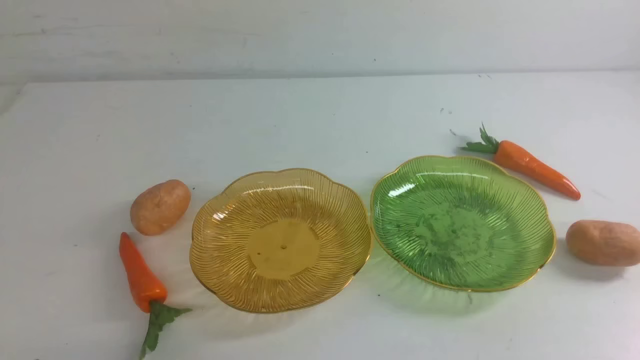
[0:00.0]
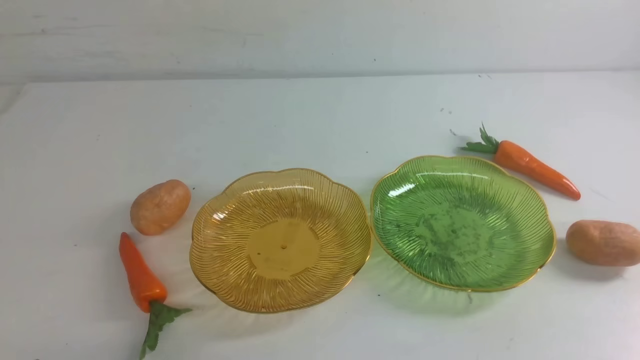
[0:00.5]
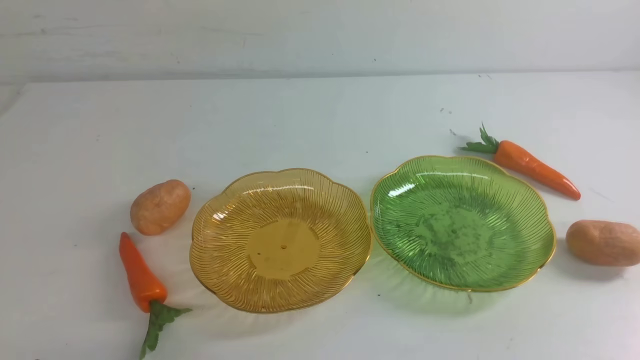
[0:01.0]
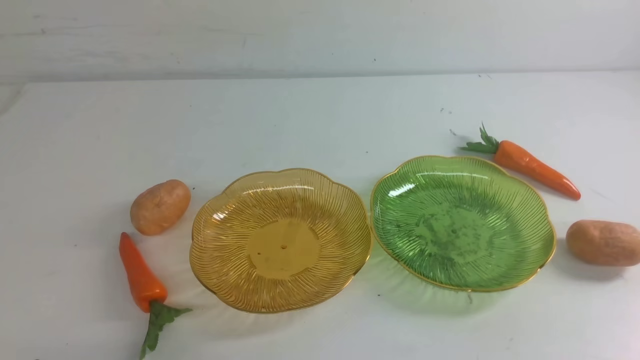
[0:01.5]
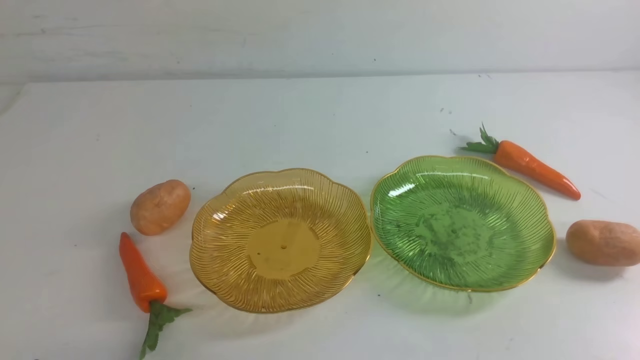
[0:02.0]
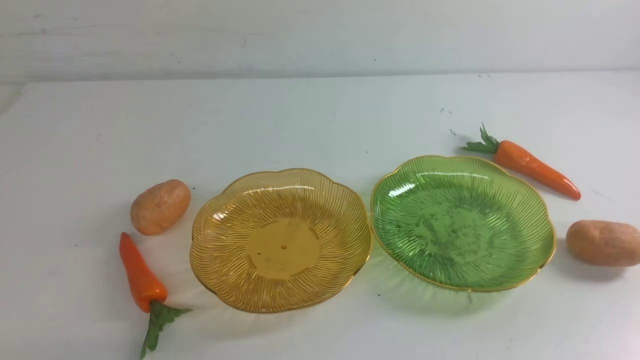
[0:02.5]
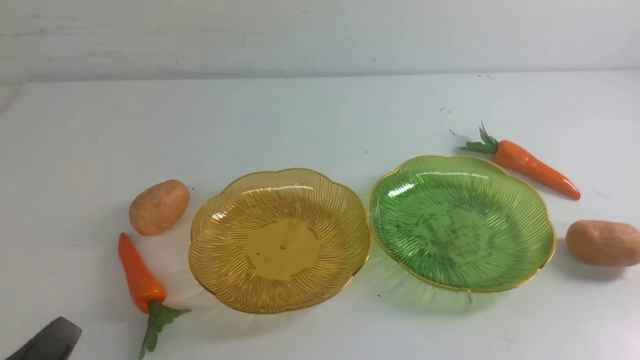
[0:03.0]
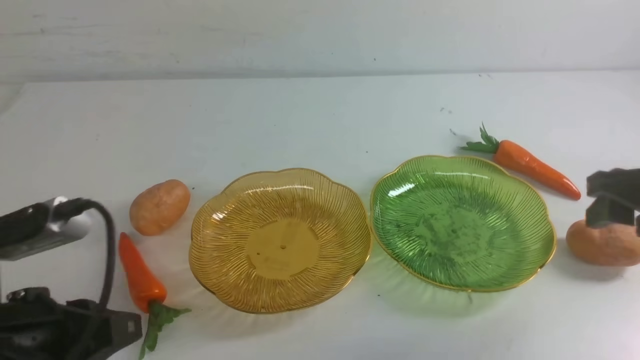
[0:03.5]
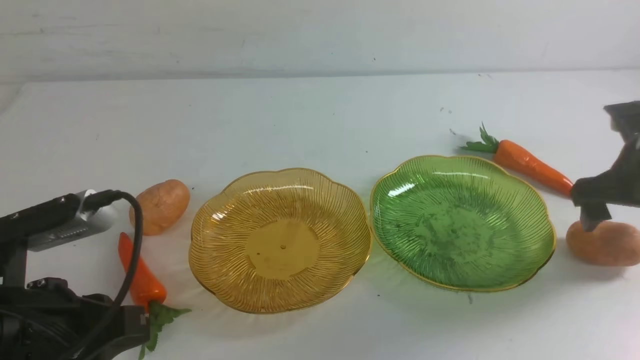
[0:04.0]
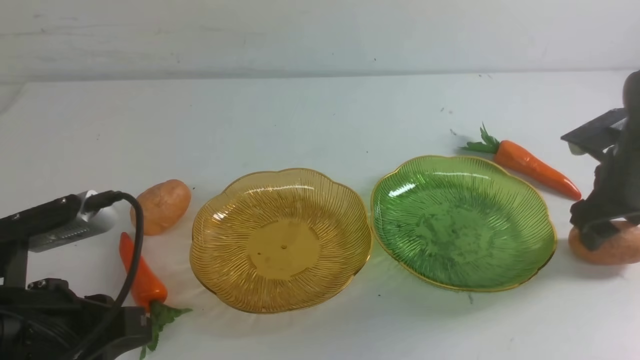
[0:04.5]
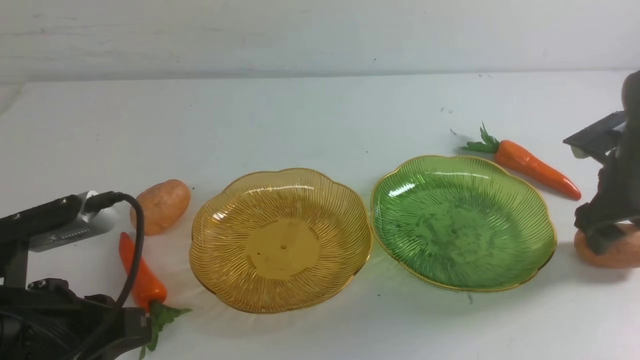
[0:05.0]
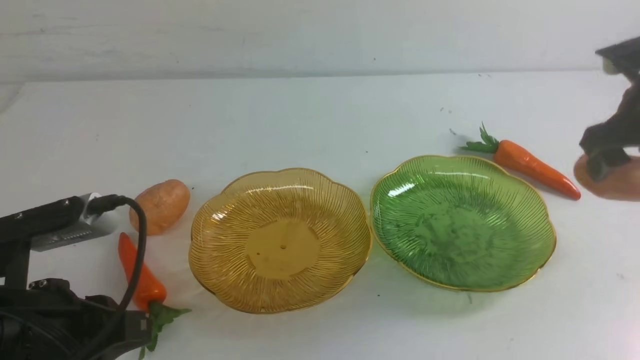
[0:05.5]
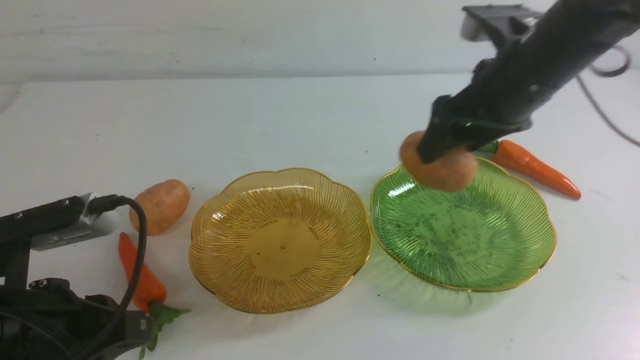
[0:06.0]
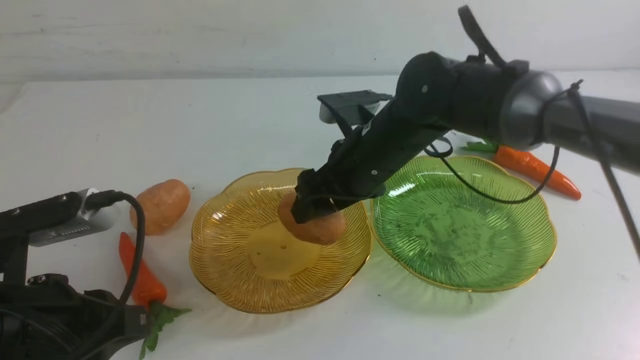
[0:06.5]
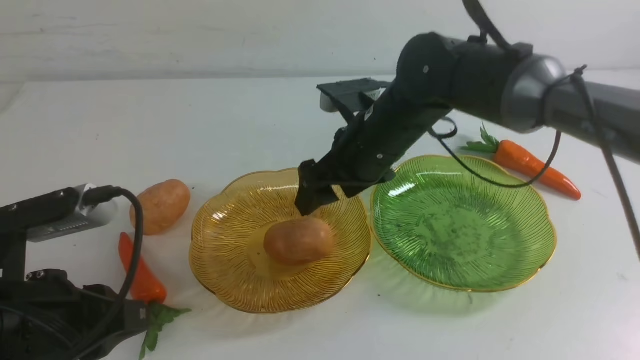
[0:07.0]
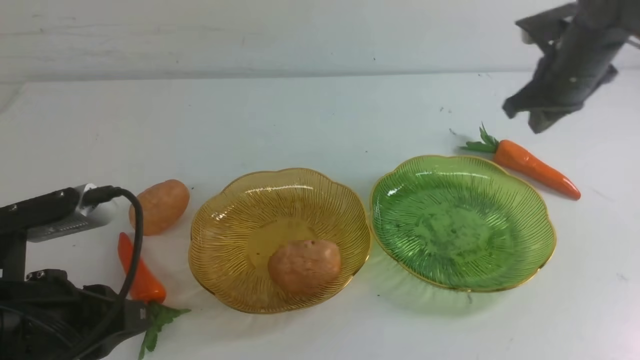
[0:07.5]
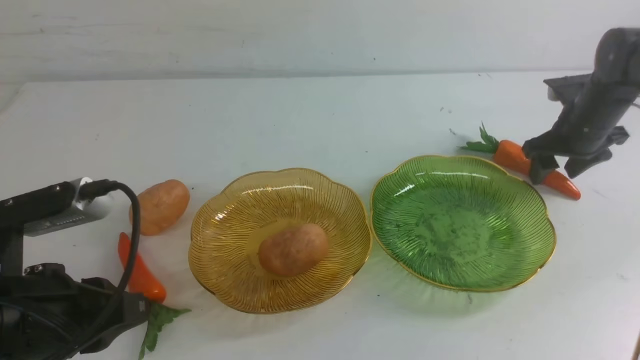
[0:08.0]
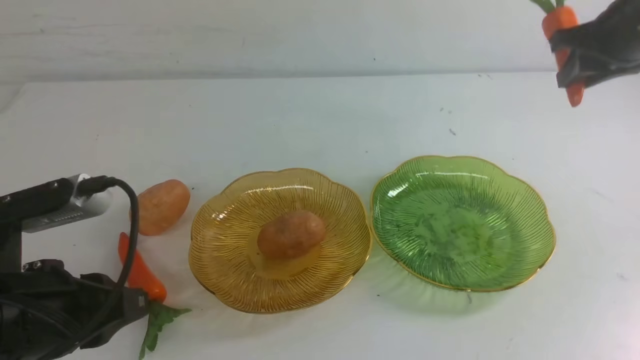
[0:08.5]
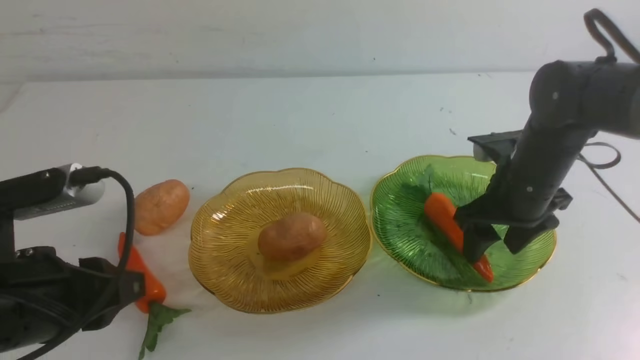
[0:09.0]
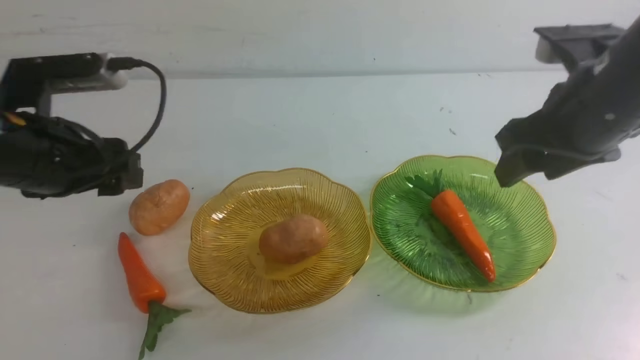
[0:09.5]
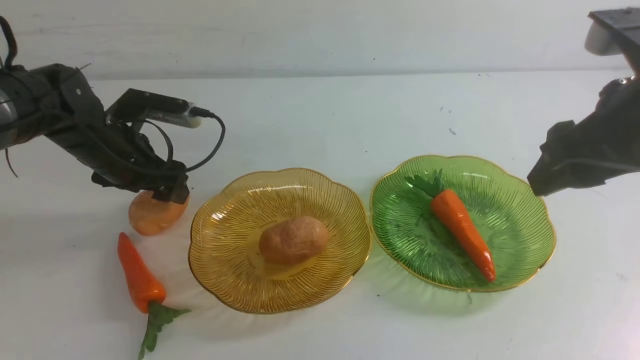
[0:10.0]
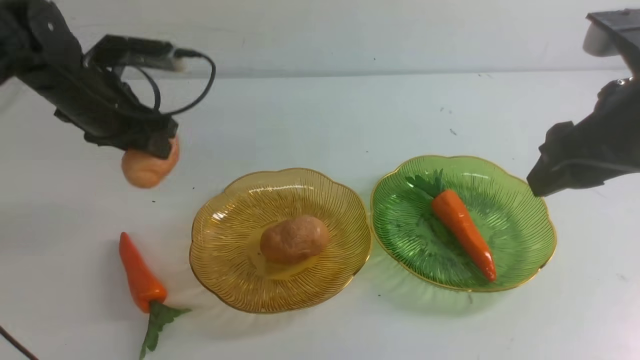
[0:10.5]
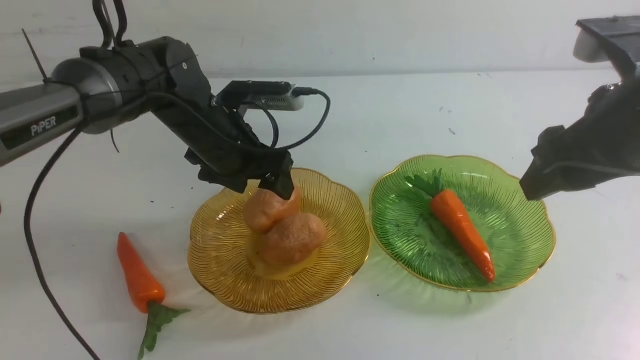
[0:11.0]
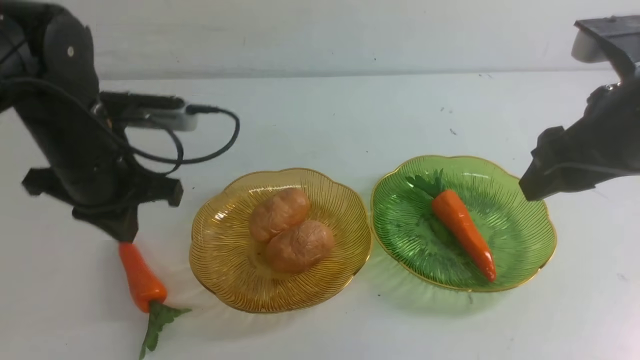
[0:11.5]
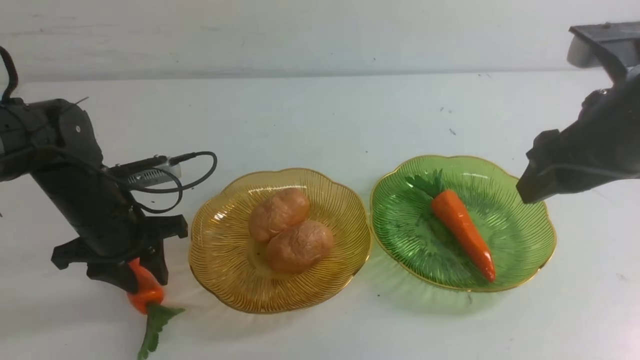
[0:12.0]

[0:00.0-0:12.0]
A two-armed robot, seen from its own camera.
Step, 0:00.0 to 0:07.0: Grab a potato with your right arm and put it on the left plate.
Step, 0:07.5 to 0:09.0: use the right arm to grab a carrot and put it into the right plate.
Step, 0:09.5 to 0:11.0: Grab a potato with your left arm and put it on the left plate.
0:02.0 to 0:04.0: The right gripper heads forward, covering roughly 30 cm, and opens its fingers, while the left gripper heads upward and forward, covering some 15 cm.
0:04.0 to 0:06.0: The right gripper goes approximately 30 cm to the left.
0:06.0 to 0:08.0: The right gripper moves to the right, approximately 20 cm, and closes.
0:08.0 to 0:10.0: The left gripper moves forward, roughly 25 cm, and opens. The right gripper goes some 15 cm backward and upward.
0:10.0 to 0:12.0: The left gripper moves to the left and backward, some 10 cm, and moves roughly 10 cm downward and comes back.

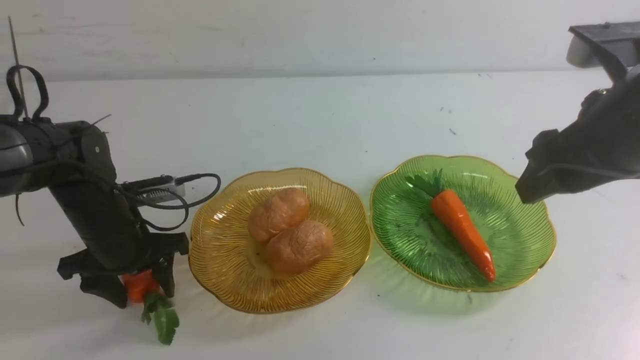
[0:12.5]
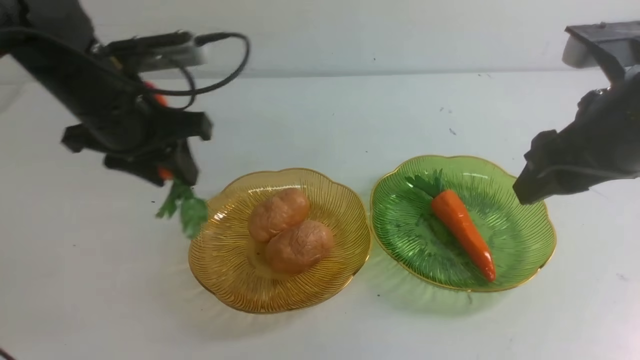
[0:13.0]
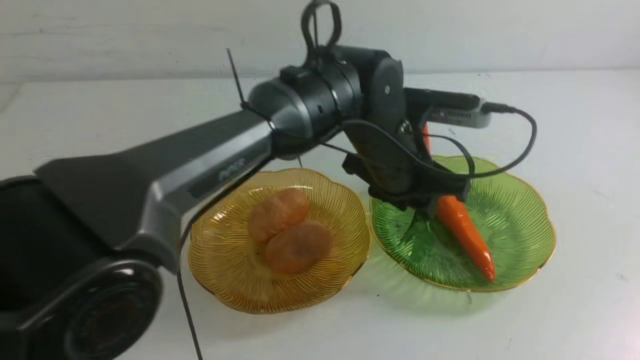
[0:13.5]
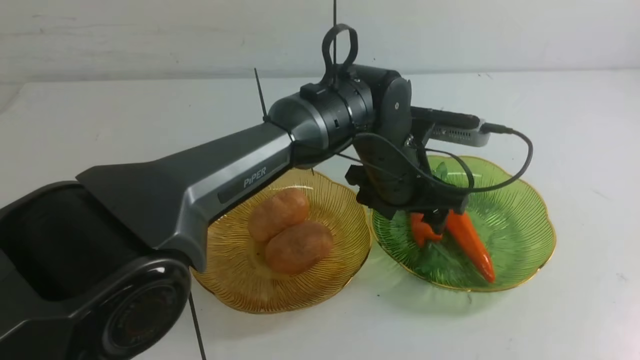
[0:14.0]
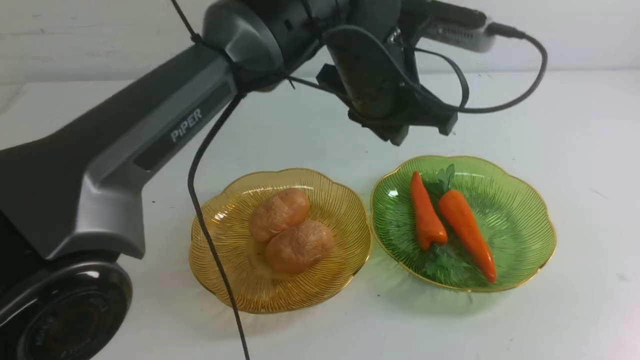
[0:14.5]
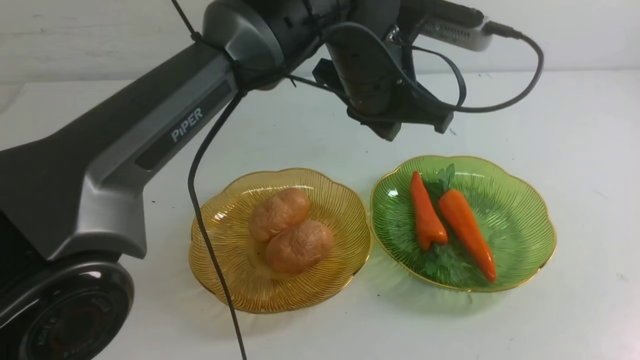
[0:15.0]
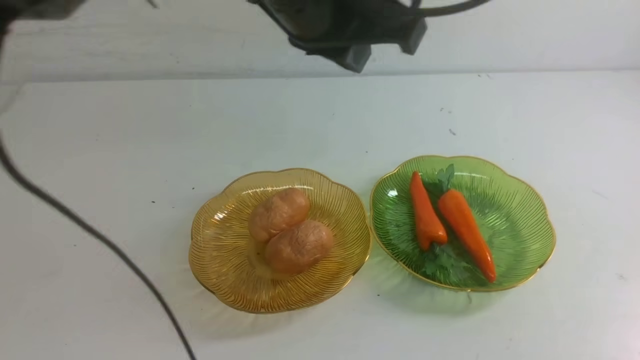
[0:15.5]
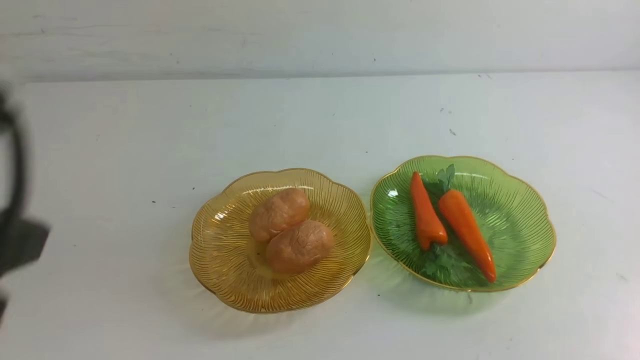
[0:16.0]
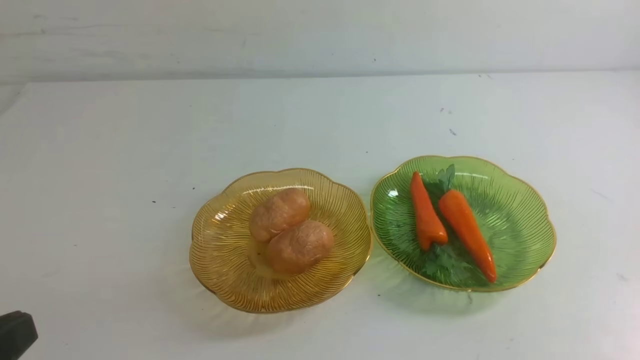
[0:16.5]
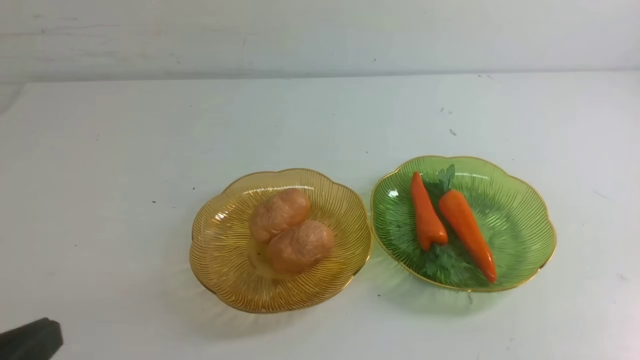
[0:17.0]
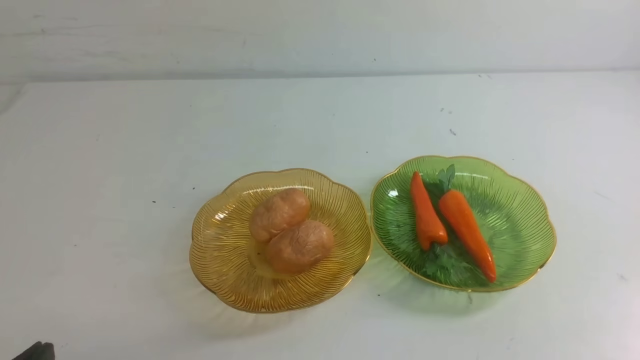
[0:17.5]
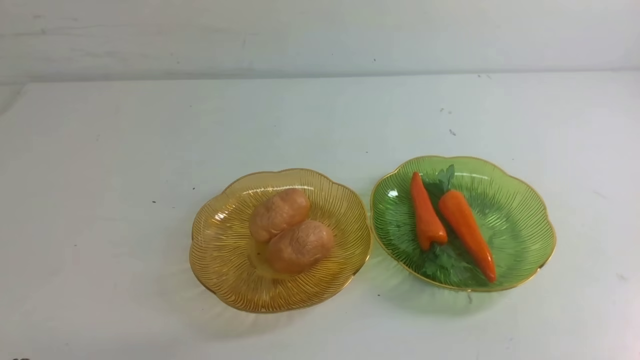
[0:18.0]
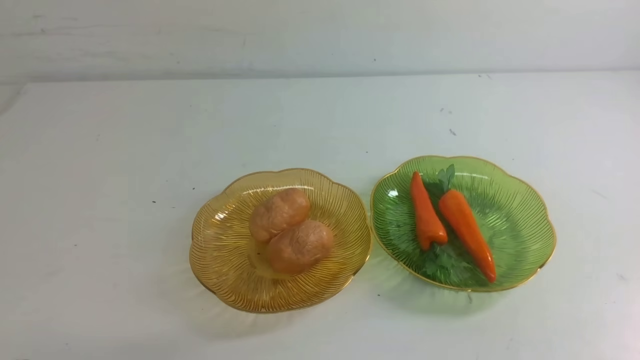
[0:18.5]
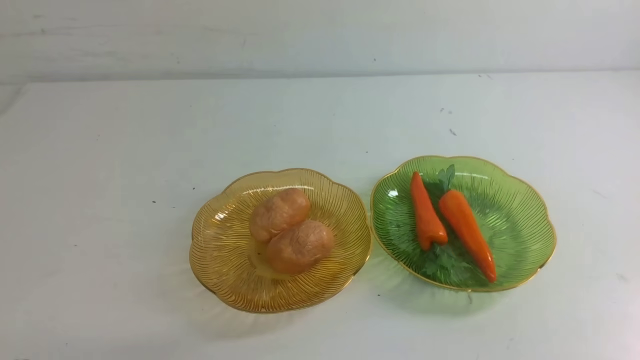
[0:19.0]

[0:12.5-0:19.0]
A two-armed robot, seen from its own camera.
Step, 0:12.5 to 0:14.0: use the left arm to grab a carrot and put it into the right plate.
0:12.5 to 0:14.5: The right gripper heads downward and backward, covering about 25 cm, while the left gripper is displaced upward by roughly 10 cm, and closes up.
0:14.5 to 0:17.0: The left gripper is displaced backward, to the left and downward by some 40 cm. Meanwhile the right gripper travels downward by roughly 5 cm.
0:17.0 to 0:19.0: Neither gripper changes place.

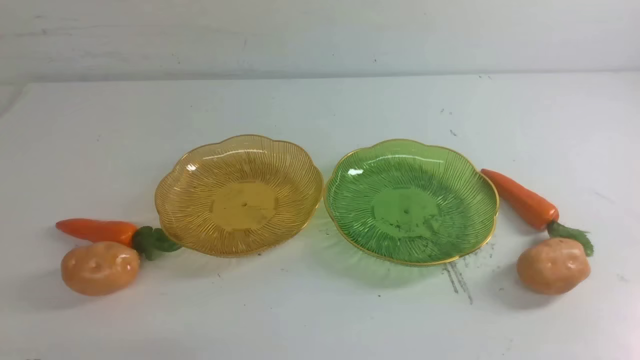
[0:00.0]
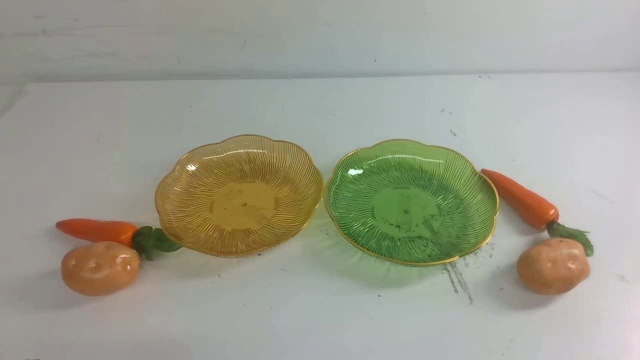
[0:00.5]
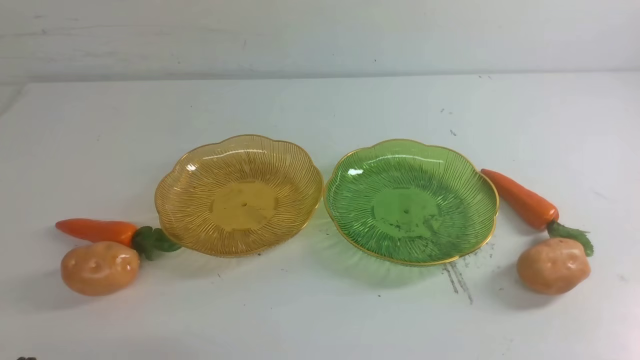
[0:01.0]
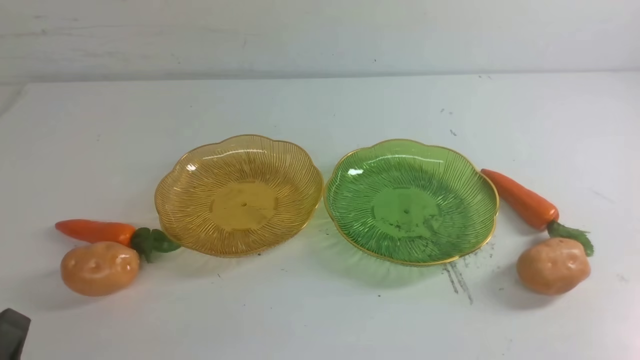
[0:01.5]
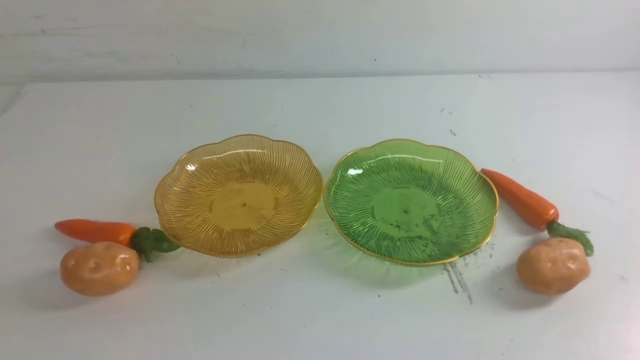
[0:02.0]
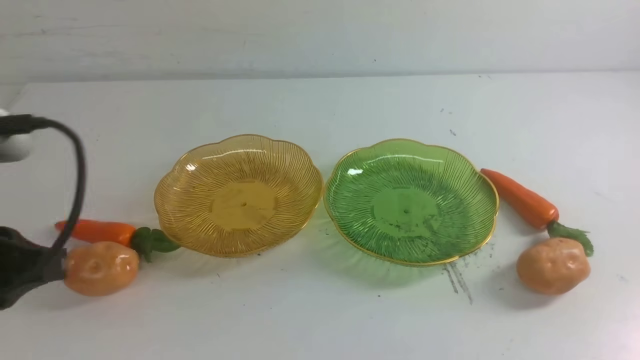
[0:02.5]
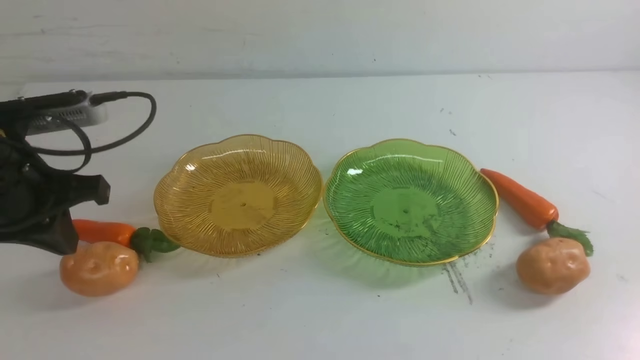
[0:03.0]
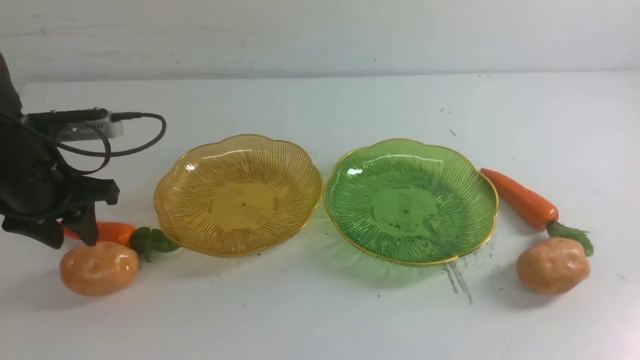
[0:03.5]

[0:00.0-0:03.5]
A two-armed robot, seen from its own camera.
0:02.0 to 0:03.5: The left gripper travels forward by roughly 30 cm, and opens.
